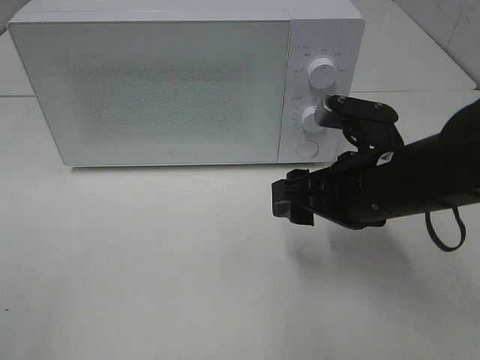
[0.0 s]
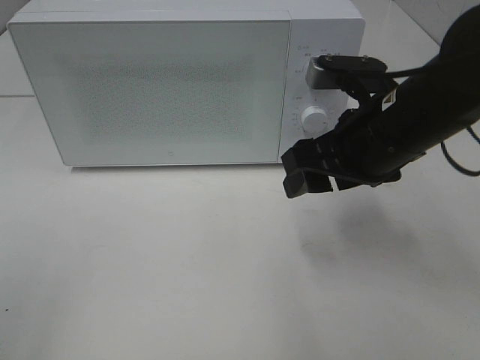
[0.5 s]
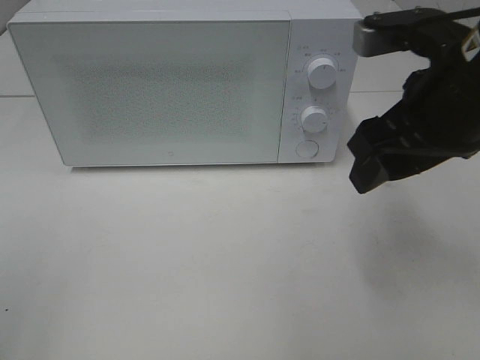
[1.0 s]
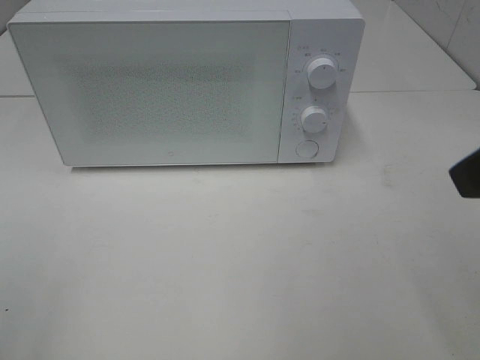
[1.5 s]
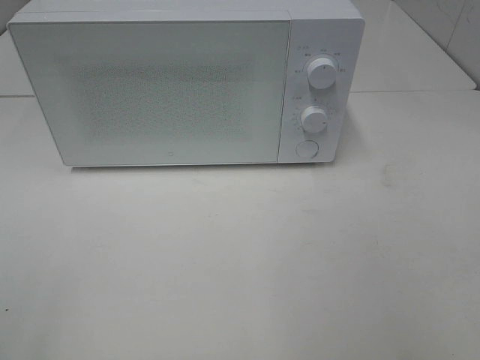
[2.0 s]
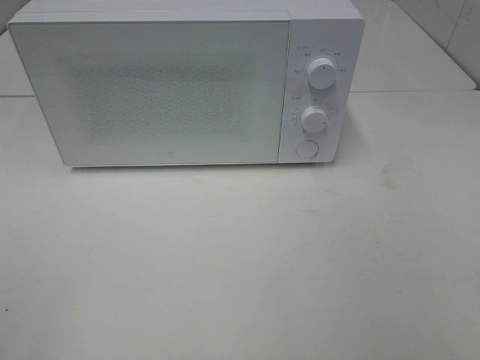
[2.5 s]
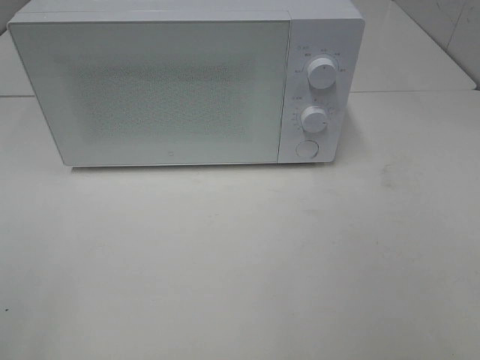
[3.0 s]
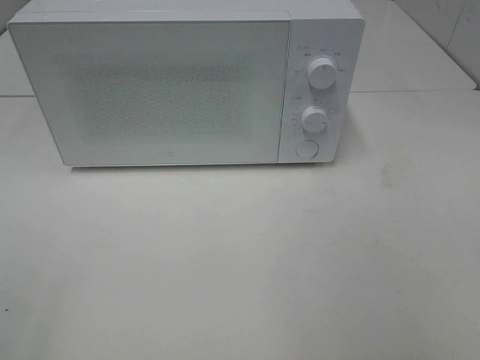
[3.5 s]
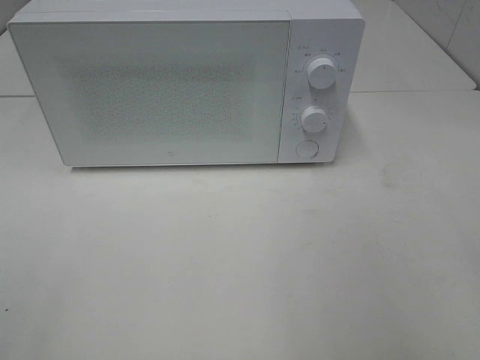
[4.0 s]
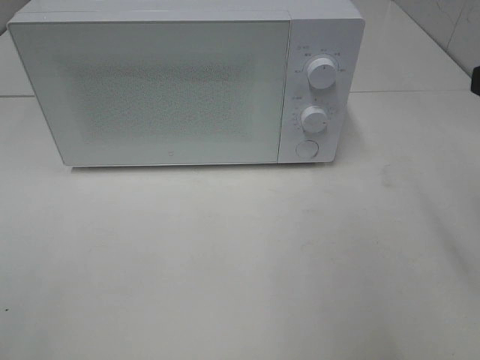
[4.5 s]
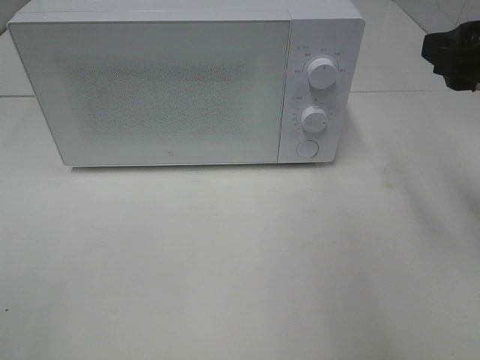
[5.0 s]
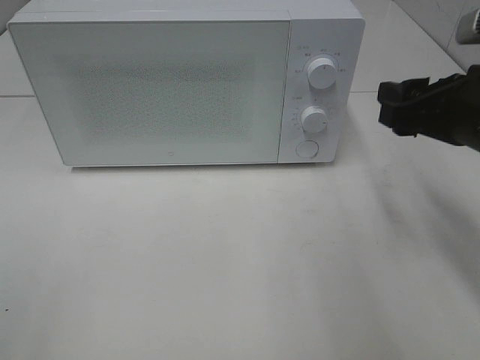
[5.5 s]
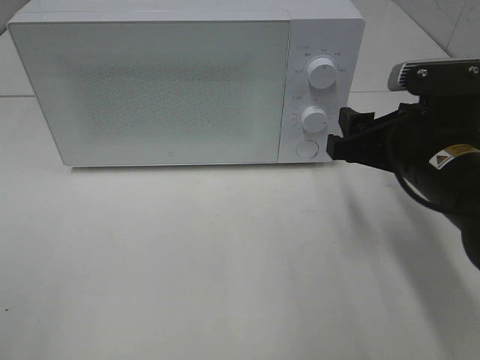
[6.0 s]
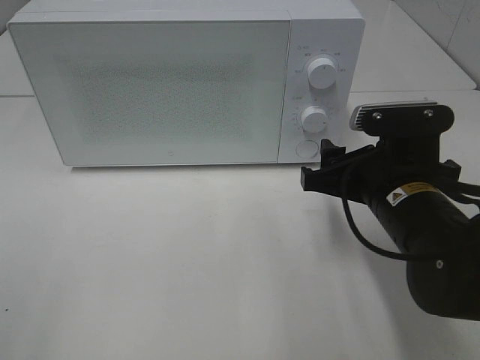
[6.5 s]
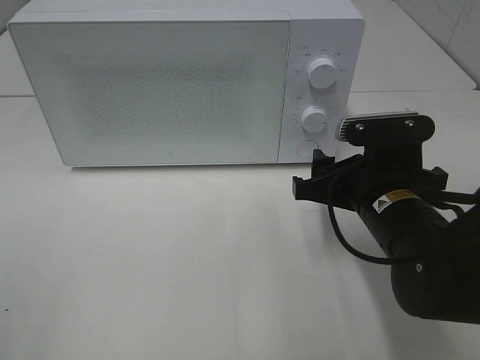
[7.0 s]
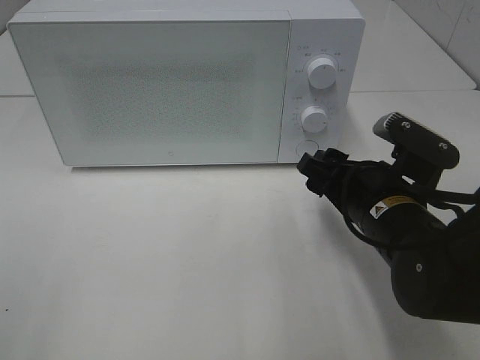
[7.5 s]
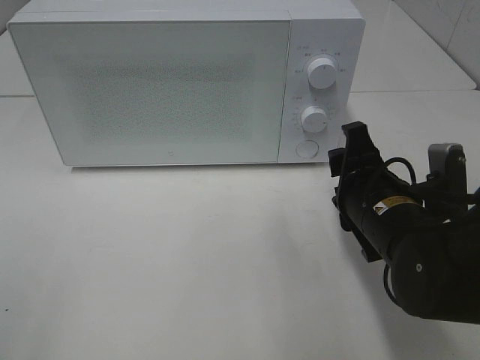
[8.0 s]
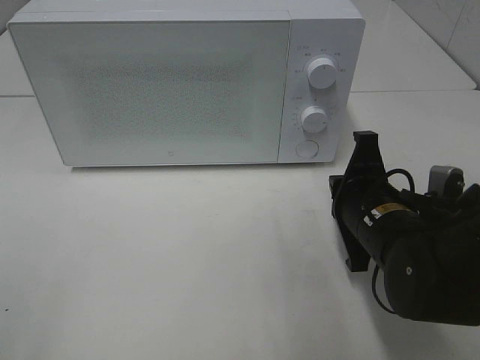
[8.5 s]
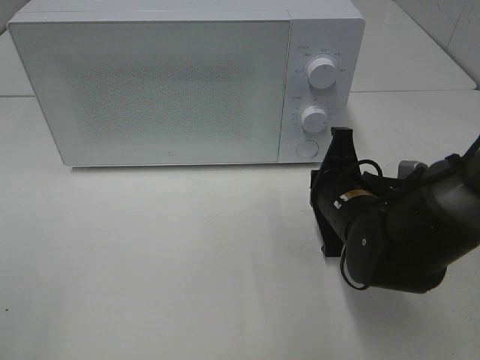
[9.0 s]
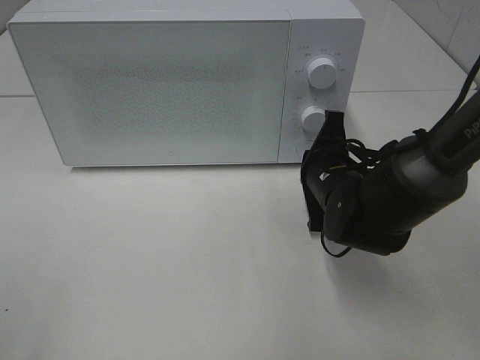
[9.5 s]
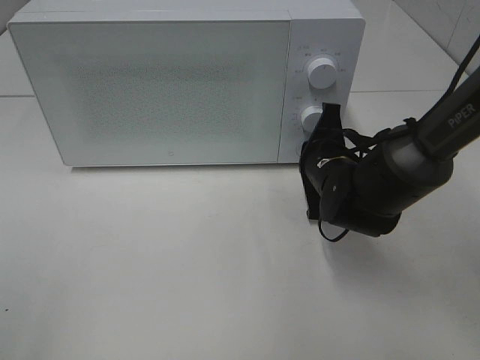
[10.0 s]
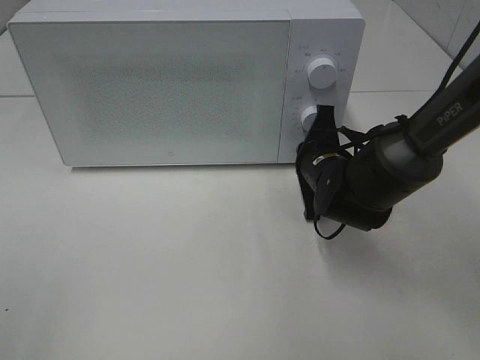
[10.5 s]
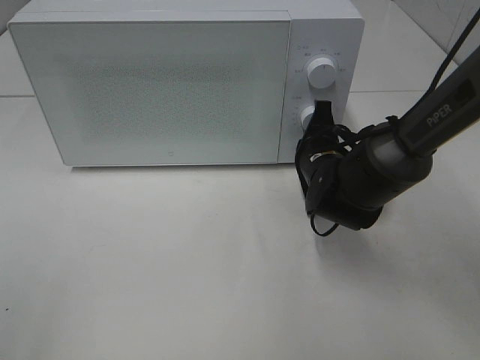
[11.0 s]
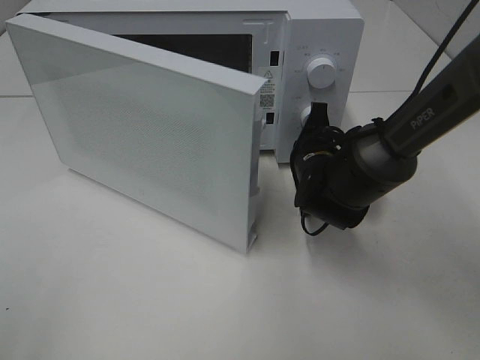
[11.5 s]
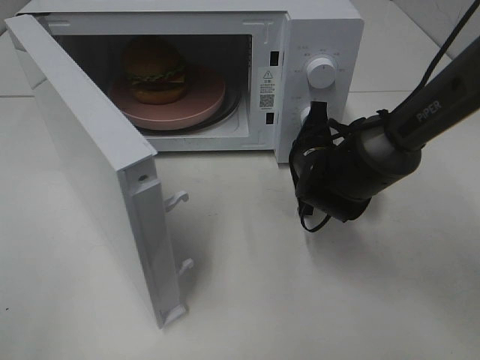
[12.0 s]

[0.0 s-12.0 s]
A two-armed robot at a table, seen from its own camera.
Task of the whole recording: Heat the burger.
0.0 to 2.0 s: The right gripper travels backward, upward and to the right by about 25 cm.
4.0 to 6.0 s: The right gripper shifts some 25 cm forward, downward and to the left.
6.0 to 8.0 s: The right gripper is displaced downward by approximately 5 cm.
8.0 to 10.0 s: The right gripper is displaced forward by approximately 10 cm, and closes.

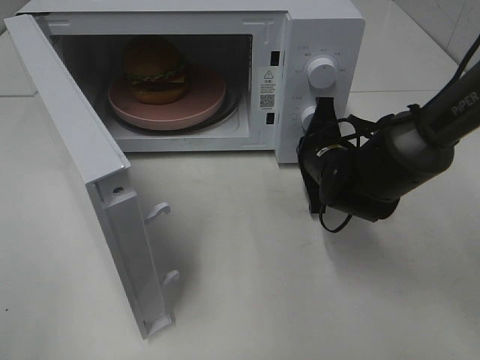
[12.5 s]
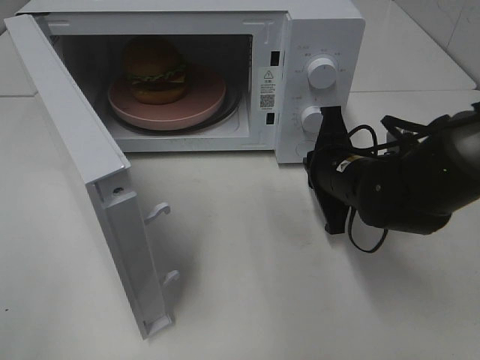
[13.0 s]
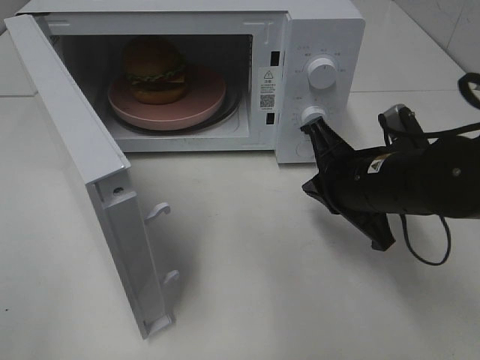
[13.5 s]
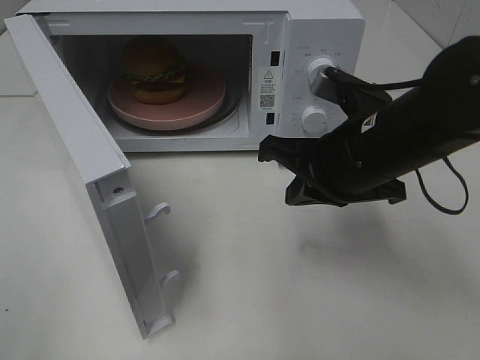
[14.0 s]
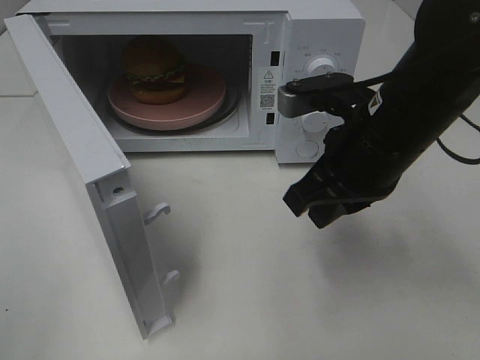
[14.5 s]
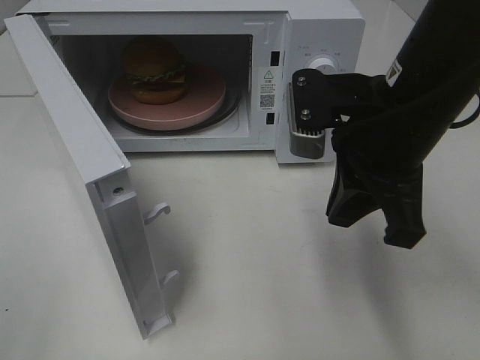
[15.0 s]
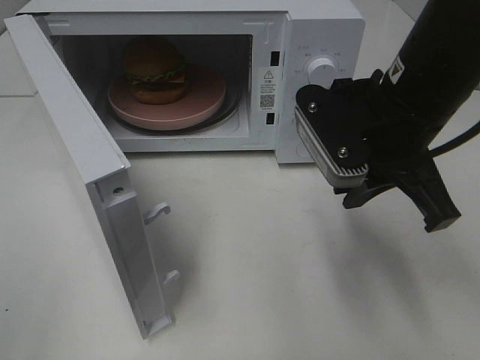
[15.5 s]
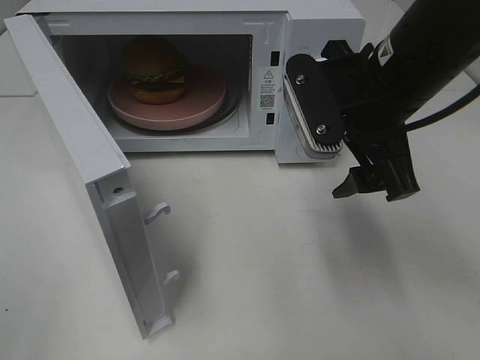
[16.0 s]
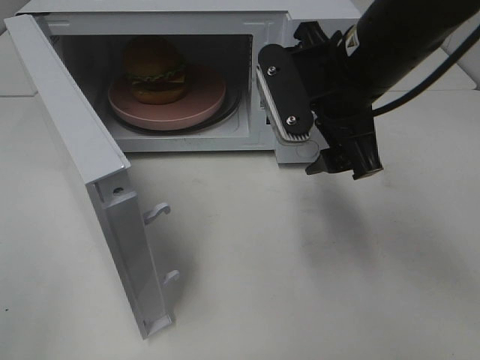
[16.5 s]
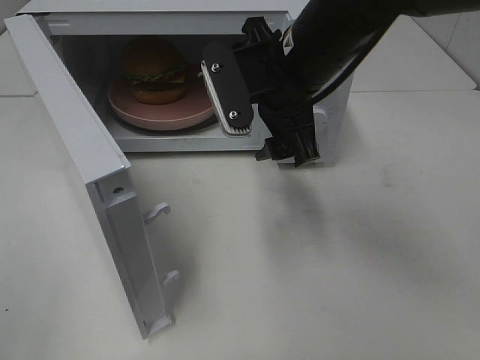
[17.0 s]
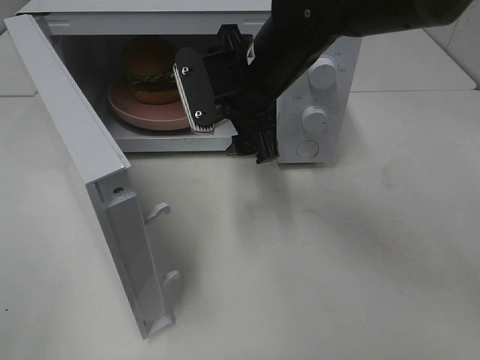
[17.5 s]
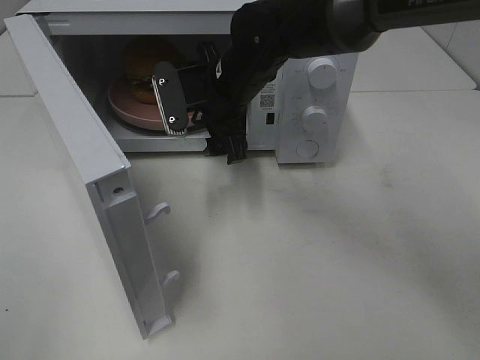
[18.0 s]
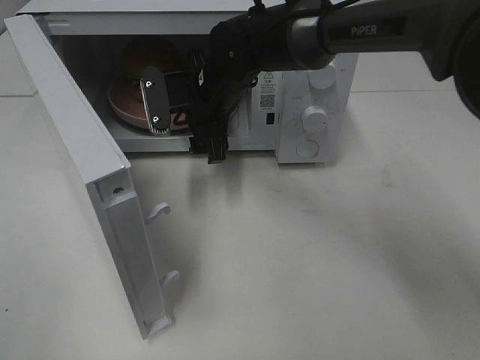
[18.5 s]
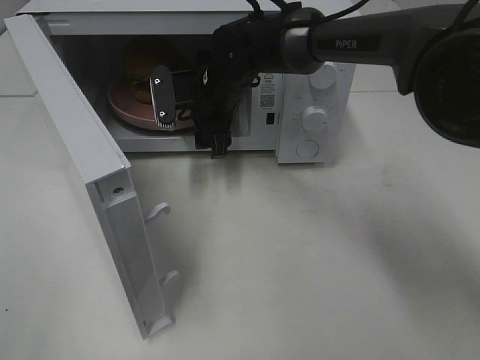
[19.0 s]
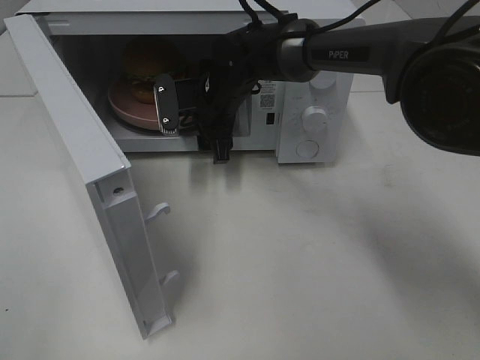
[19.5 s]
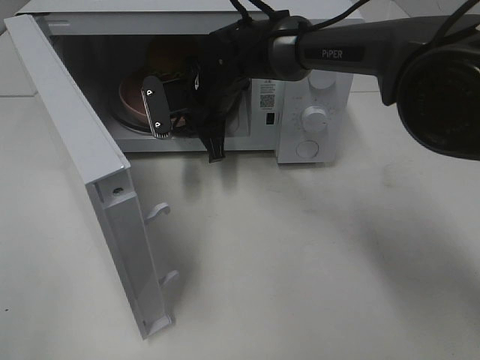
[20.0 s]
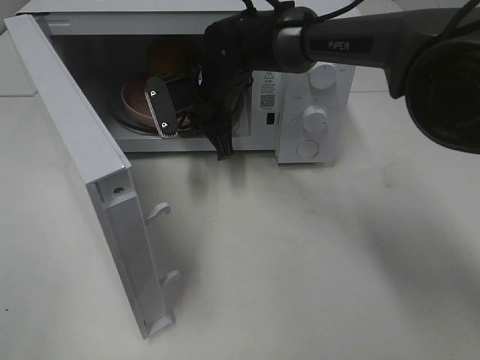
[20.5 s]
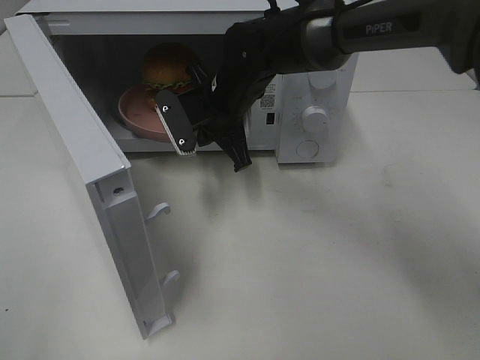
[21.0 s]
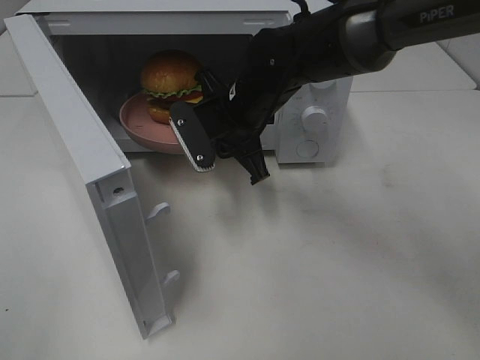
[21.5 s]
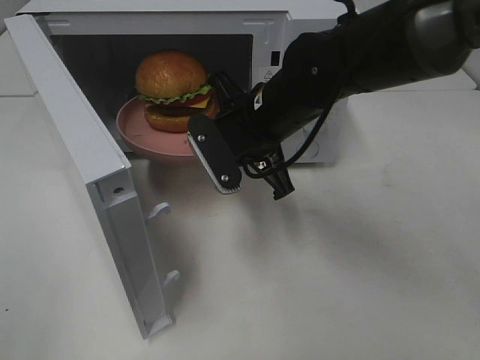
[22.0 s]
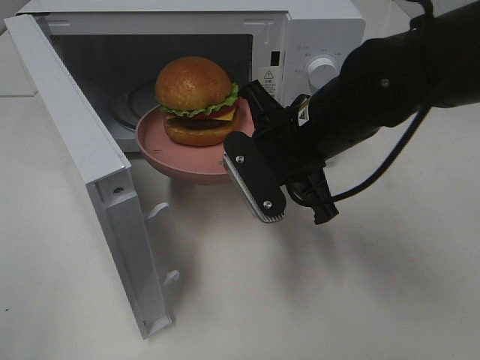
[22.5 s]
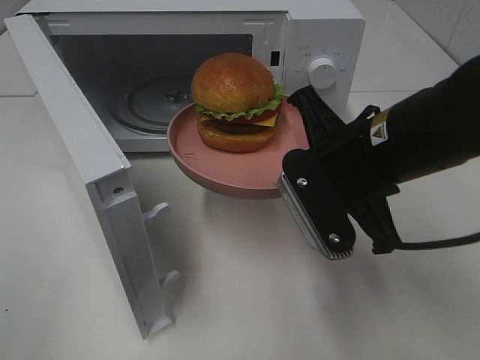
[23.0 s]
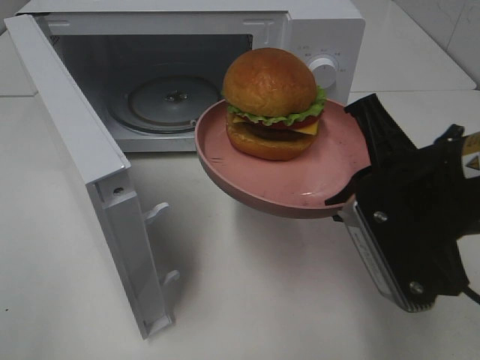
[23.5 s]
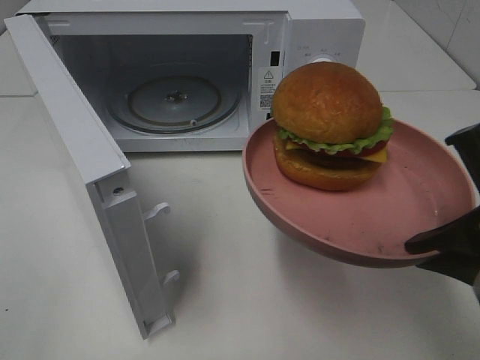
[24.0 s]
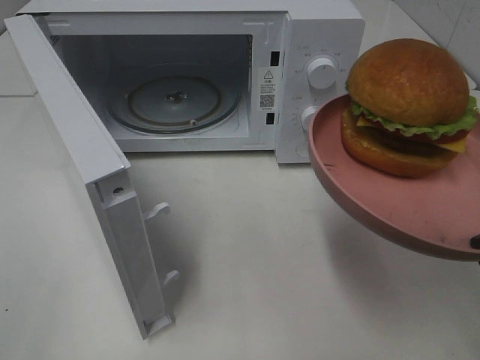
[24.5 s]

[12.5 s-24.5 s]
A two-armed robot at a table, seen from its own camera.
Task of the whole recording: Heat the burger.
Step, 13.0 to 20.0 s: Right hand: grab the plate with the hamburger.
12.5 to 14.5 s: The right gripper shifts roughly 15 cm upward and backward.
14.5 to 16.5 s: The right gripper ends up roughly 5 cm from where it was, and opens up.
16.5 to 18.5 s: The right gripper heads forward, to the left and downward, covering some 20 cm.
18.5 to 20.5 s: The right gripper closes up.
20.5 to 22.5 s: The right gripper shifts approximately 20 cm backward and to the right.
22.5 to 24.5 s: The right gripper shifts approximately 25 cm backward and to the right.

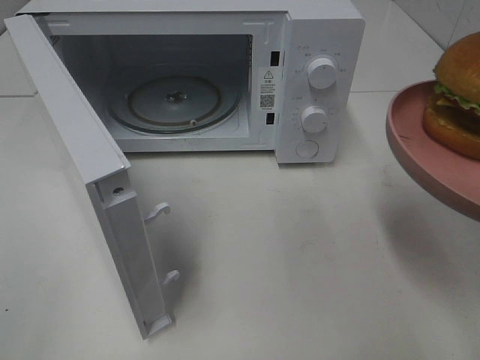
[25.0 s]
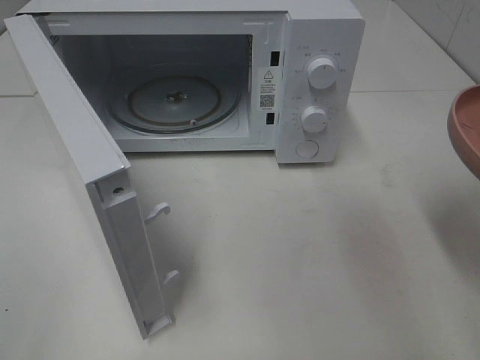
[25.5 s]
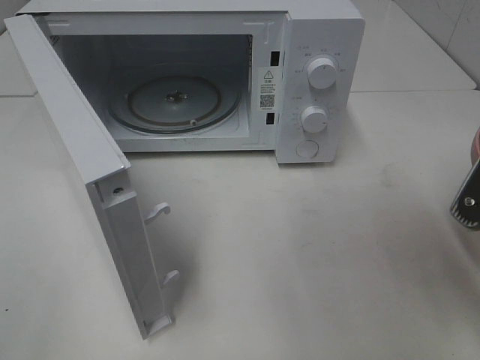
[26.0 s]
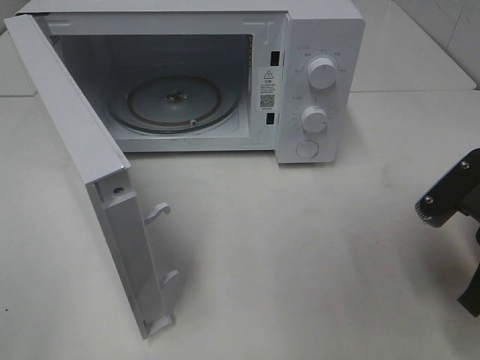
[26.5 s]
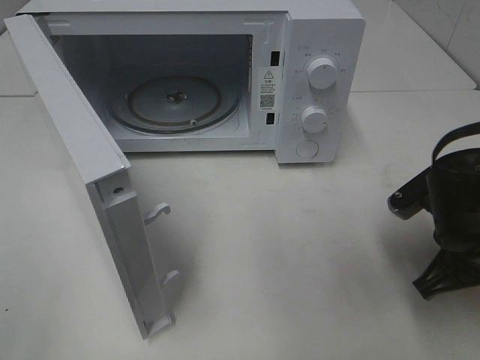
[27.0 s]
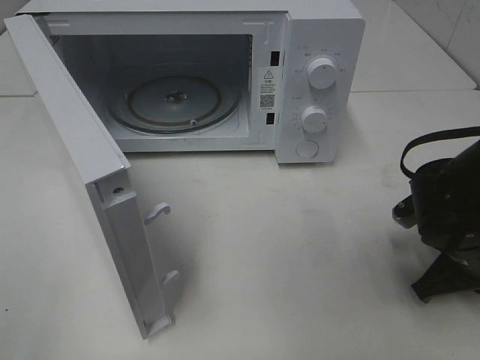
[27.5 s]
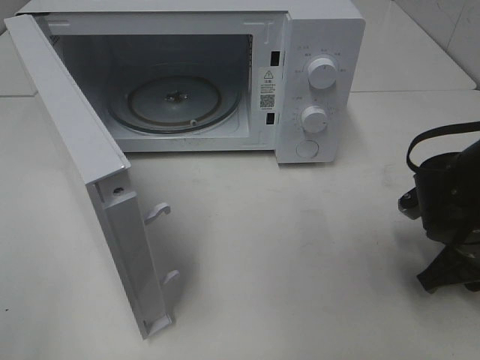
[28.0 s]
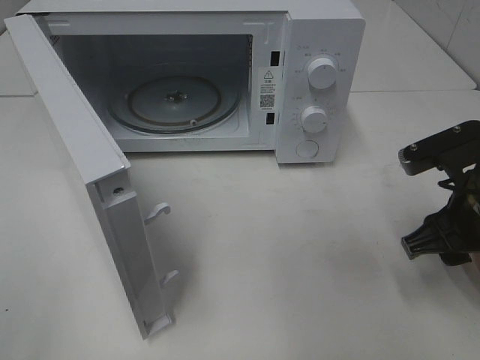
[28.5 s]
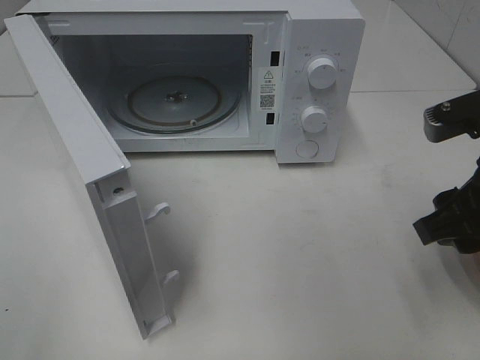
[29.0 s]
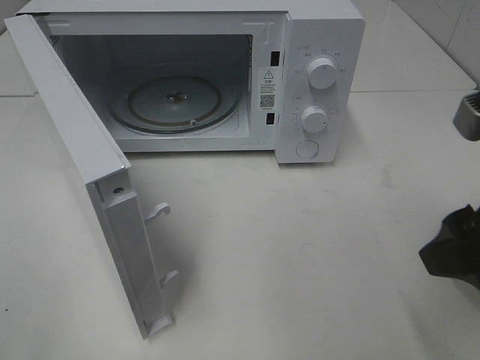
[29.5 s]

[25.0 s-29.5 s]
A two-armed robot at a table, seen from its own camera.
Task of the whole recording: Heat the burger.
Step, 25.0 to 28.0 s: Right hand: place the plate on the table.
25.0 to 27.0 s: The right gripper is displaced downward and forward by roughly 15 cm.
27.0 to 29.5 s: The right gripper is displaced upward and backward by roughly 15 cm, and opens up.
